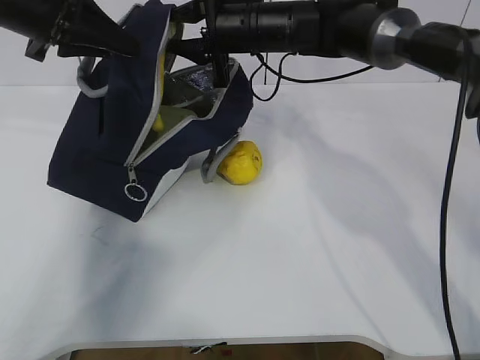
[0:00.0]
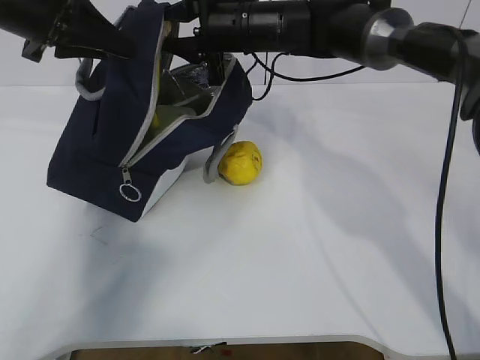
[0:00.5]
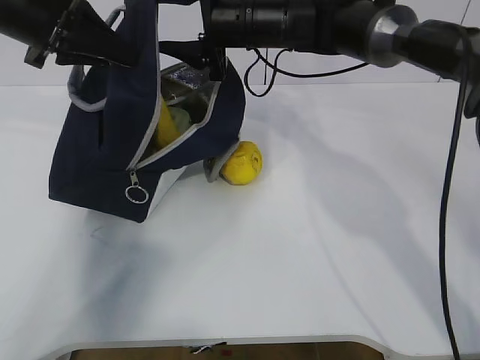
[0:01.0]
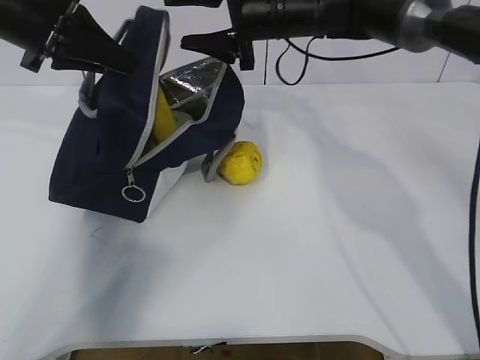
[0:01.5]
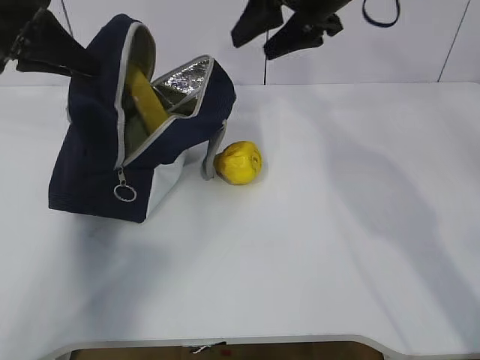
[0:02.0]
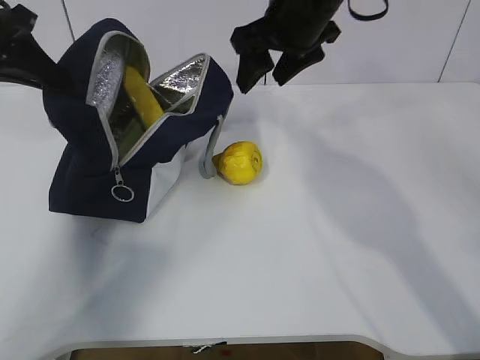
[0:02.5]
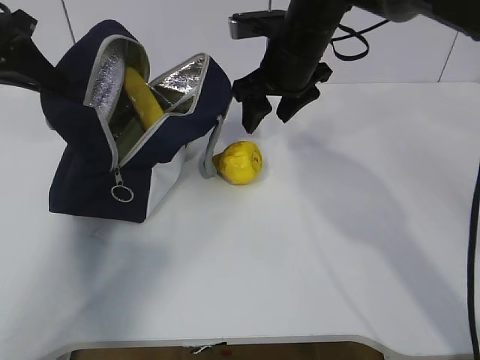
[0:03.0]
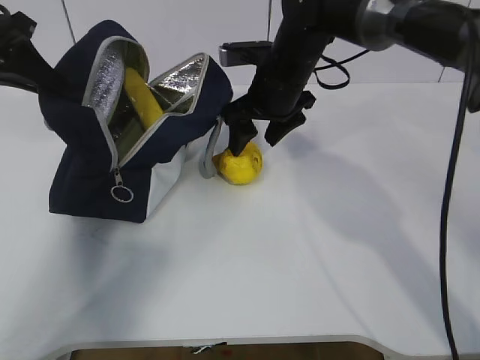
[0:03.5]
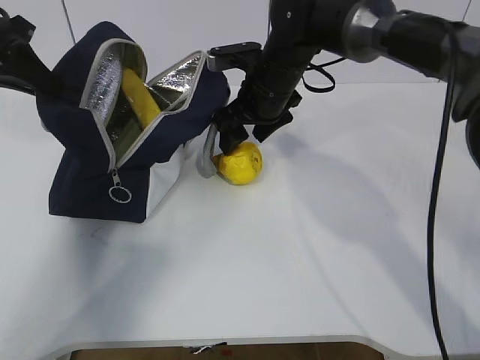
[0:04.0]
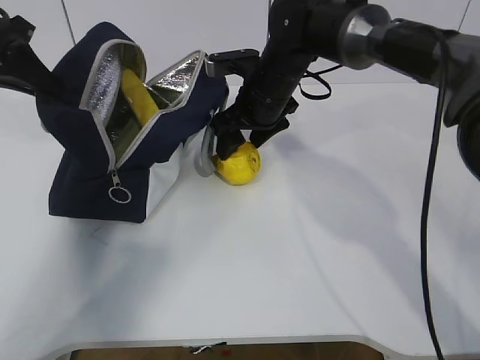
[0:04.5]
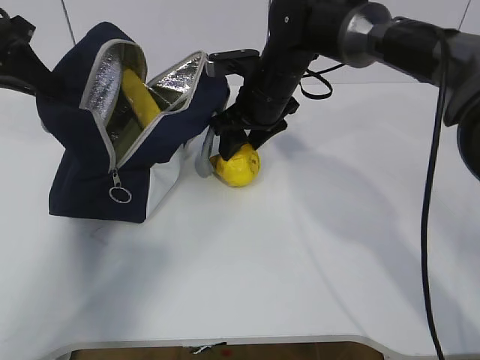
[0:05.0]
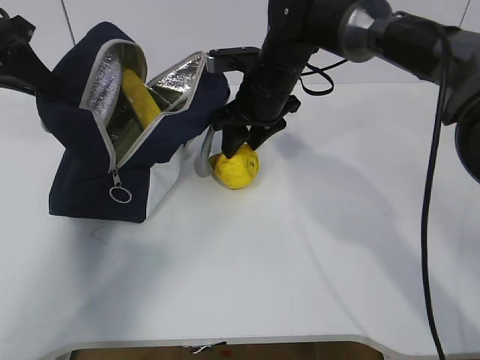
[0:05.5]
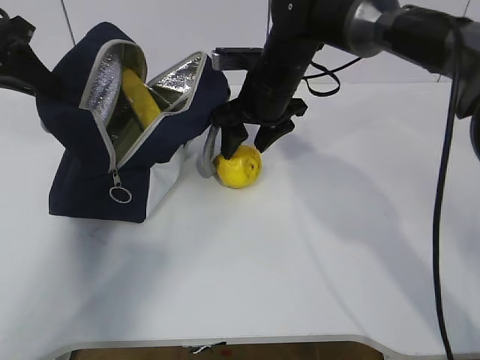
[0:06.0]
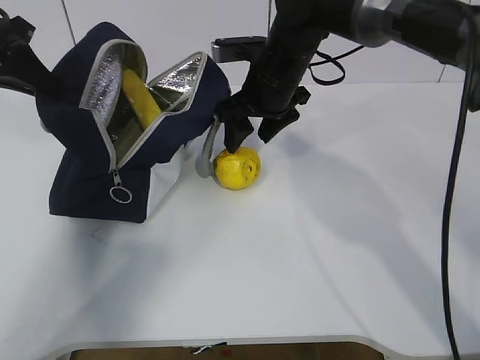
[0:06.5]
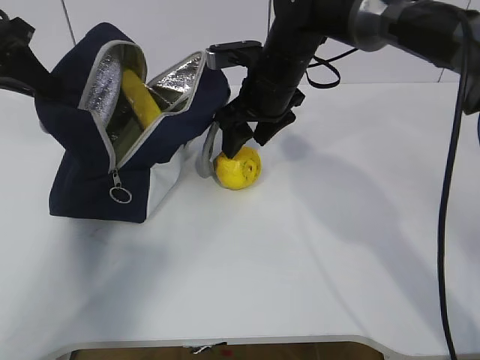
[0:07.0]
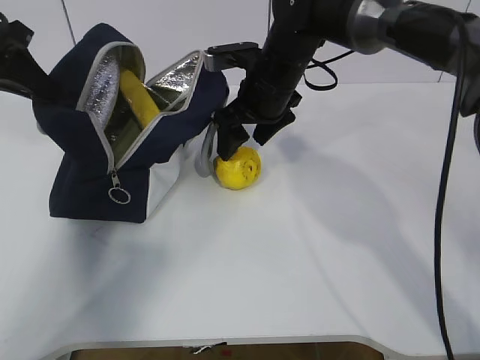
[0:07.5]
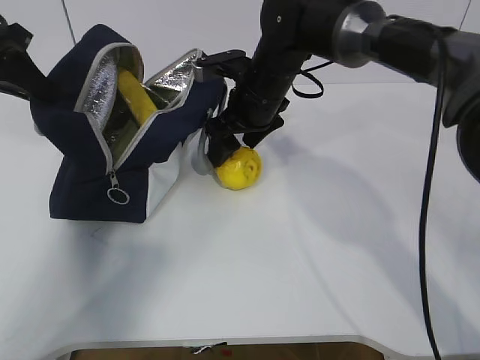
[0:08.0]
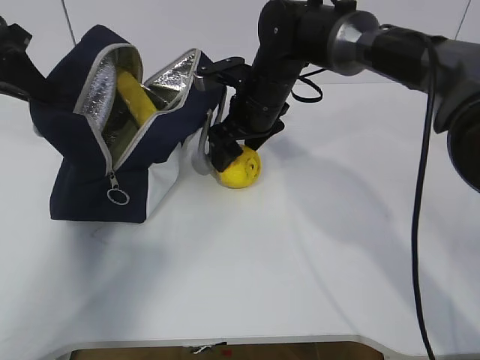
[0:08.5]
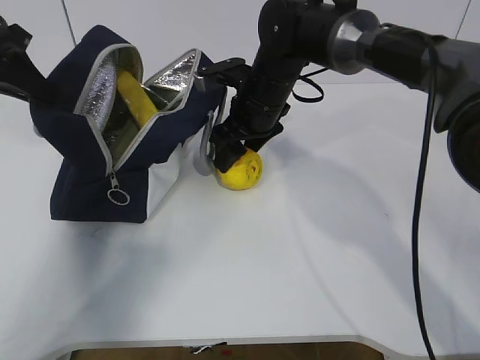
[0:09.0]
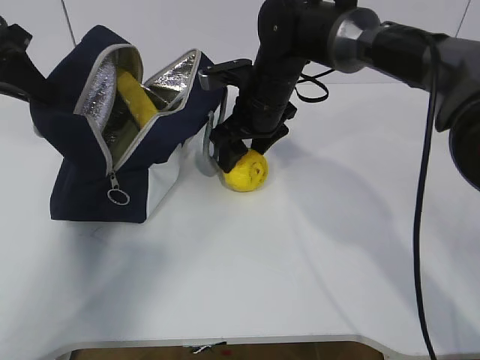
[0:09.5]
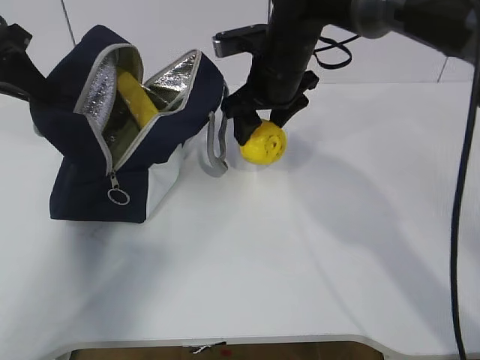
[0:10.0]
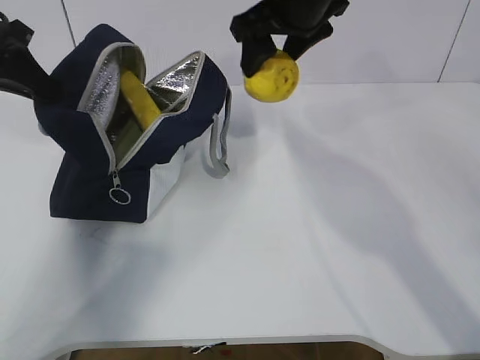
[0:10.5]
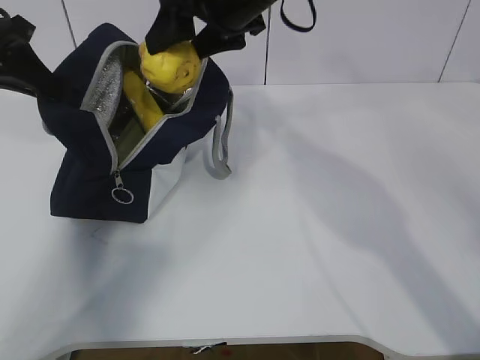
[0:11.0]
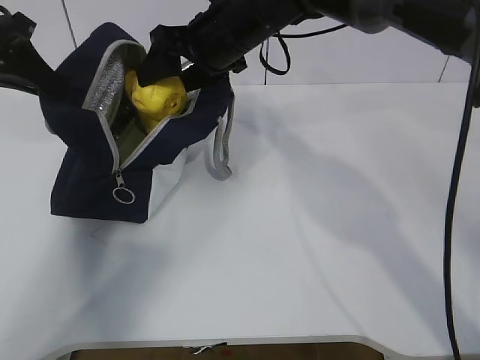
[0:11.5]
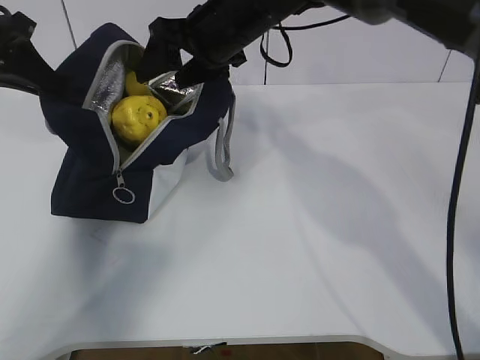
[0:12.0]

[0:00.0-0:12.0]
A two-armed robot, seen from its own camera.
Step, 0:02.0 to 0:09.0: Grasp the pear with the right gripper.
0:00.0 to 0:02.0: The right gripper travels to the right and upward by approximately 10 cm, and opens up.
0:02.0 to 0:04.0: The right gripper is displaced downward and to the left by roughly 15 cm.
0:04.0 to 0:10.0: There are only small adjustments of the grippers.
0:10.0 to 0:12.0: The right gripper is displaced to the left by some 5 cm.

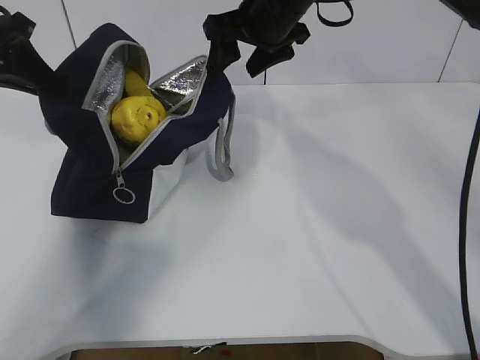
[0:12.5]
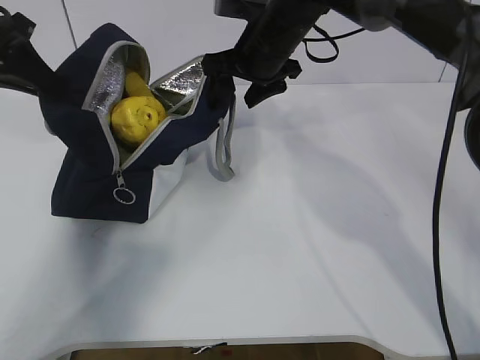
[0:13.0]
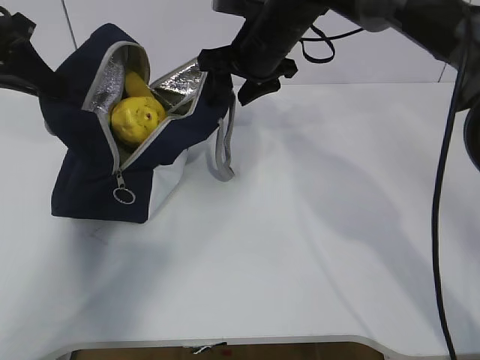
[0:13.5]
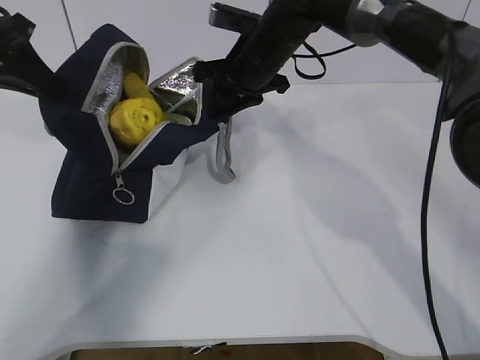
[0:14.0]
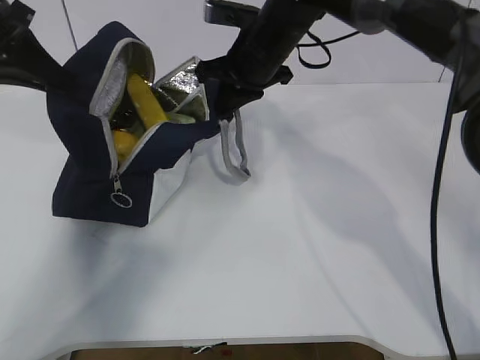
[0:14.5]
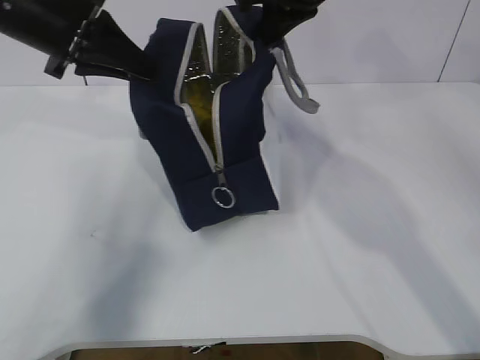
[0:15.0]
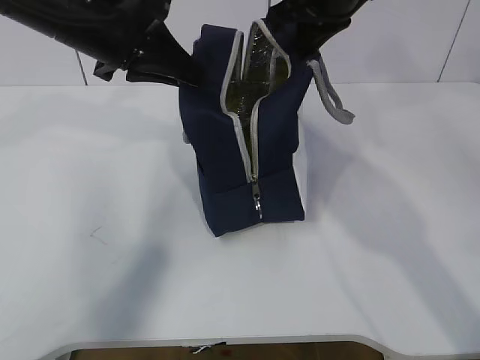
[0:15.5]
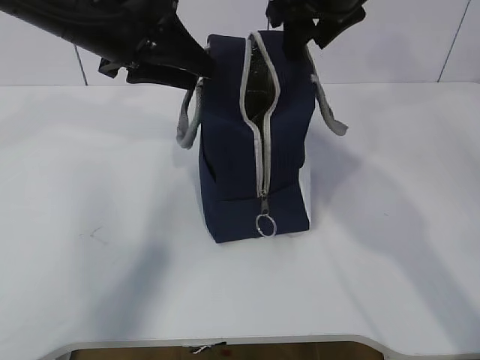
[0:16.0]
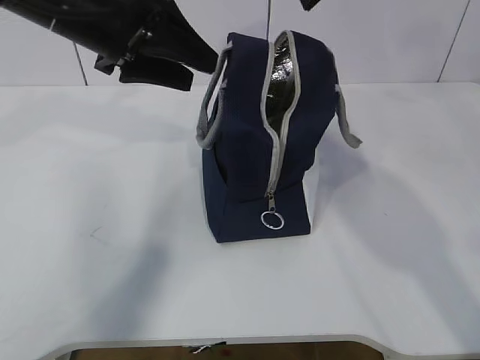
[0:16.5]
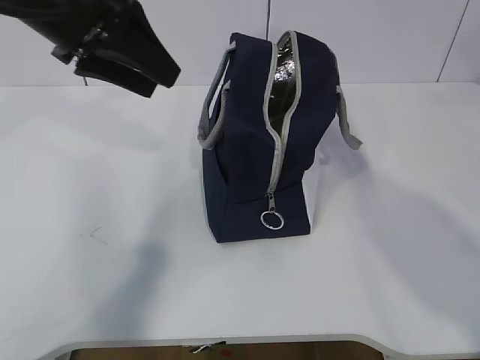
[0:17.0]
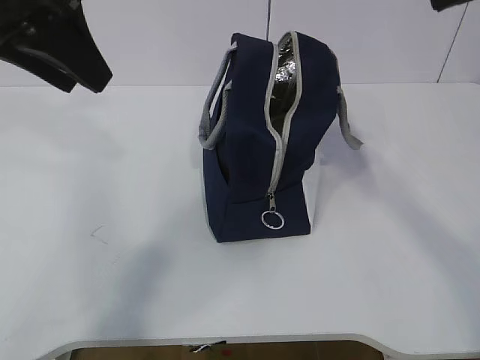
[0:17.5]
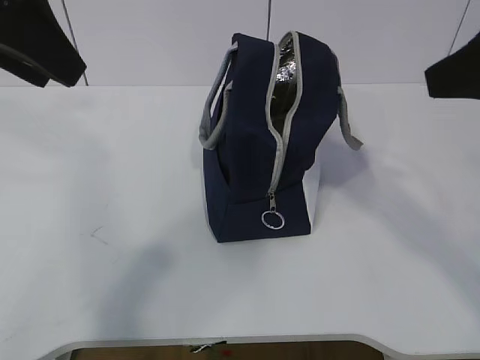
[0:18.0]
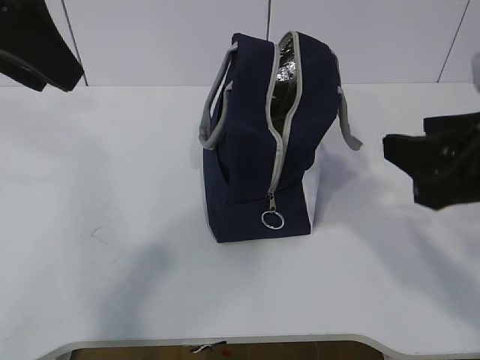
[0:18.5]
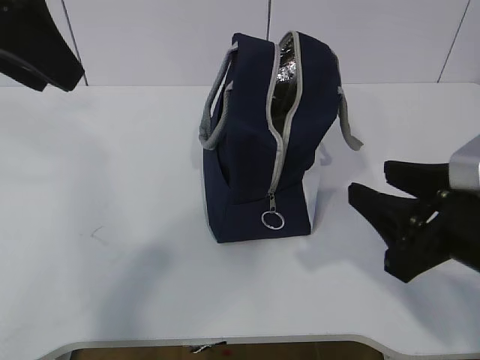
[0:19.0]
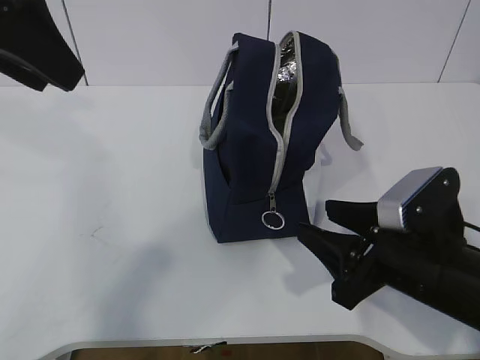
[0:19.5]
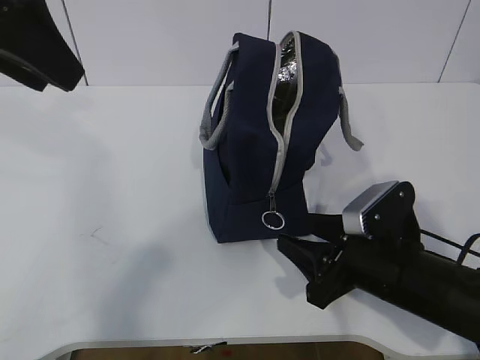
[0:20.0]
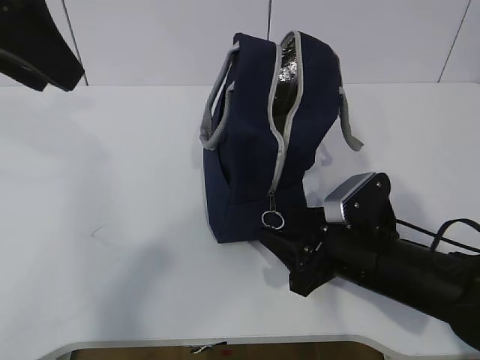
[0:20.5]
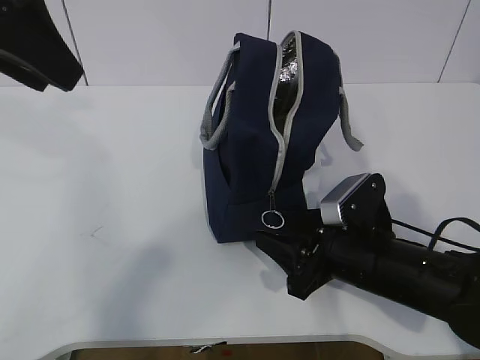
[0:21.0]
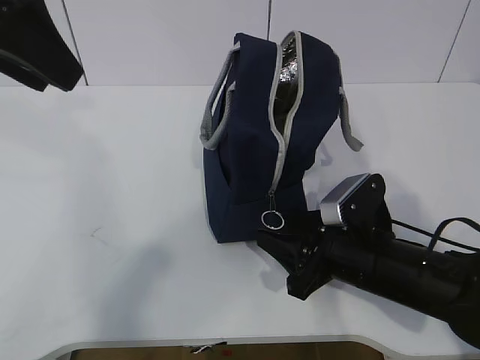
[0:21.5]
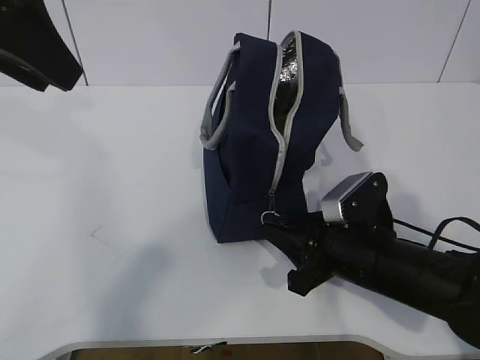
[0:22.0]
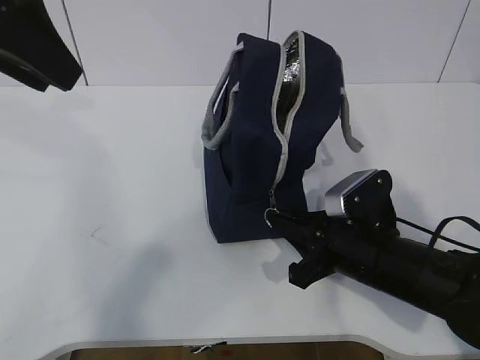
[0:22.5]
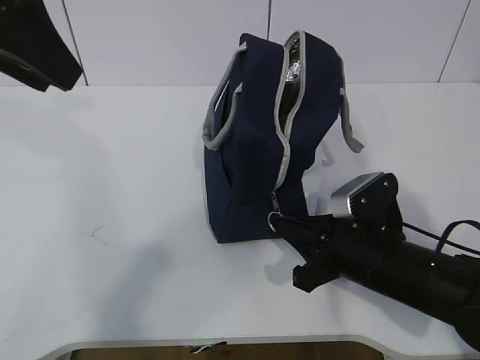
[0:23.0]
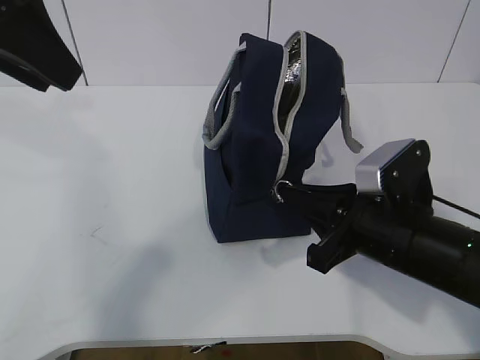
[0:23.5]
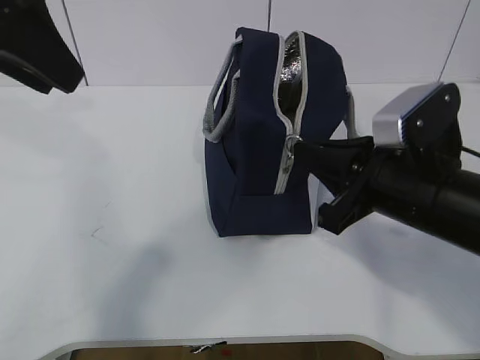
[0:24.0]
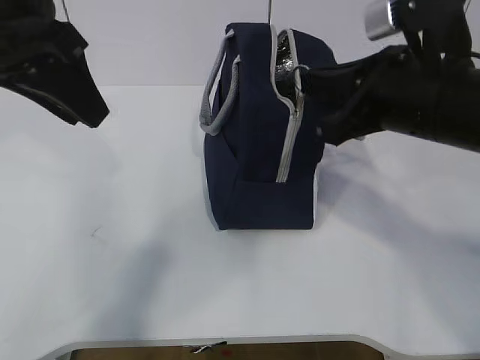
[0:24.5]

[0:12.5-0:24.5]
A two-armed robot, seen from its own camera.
0:12.5 to 0:14.5: The right gripper shifts roughly 5 cm downward, and closes up.
0:14.5 to 0:16.5: The left gripper is displaced to the right by approximately 15 cm, and opens. Meanwhile the right gripper travels upward, backward and to the right by approximately 20 cm, and opens up.
0:16.5 to 0:18.5: The right gripper is displaced backward and downward by some 25 cm. Meanwhile the left gripper heads backward, upward and to the left, covering about 15 cm.
0:18.5 to 0:20.5: The right gripper heads downward, covering some 15 cm.
0:20.5 to 0:22.5: The right gripper closes up.
0:22.5 to 0:24.5: The right gripper is displaced upward by approximately 20 cm.

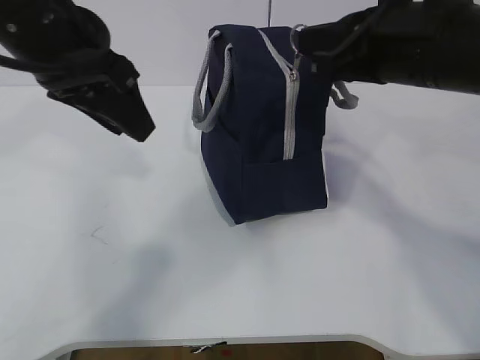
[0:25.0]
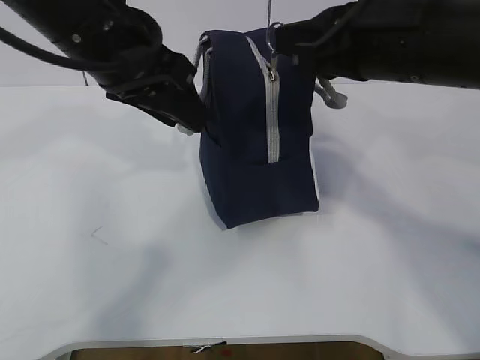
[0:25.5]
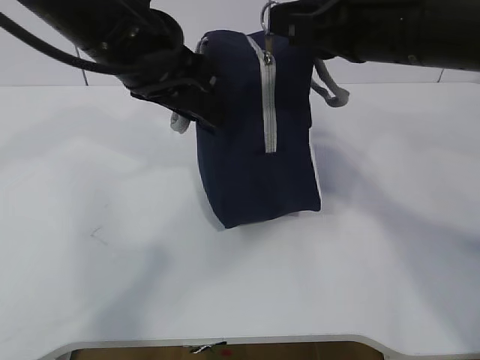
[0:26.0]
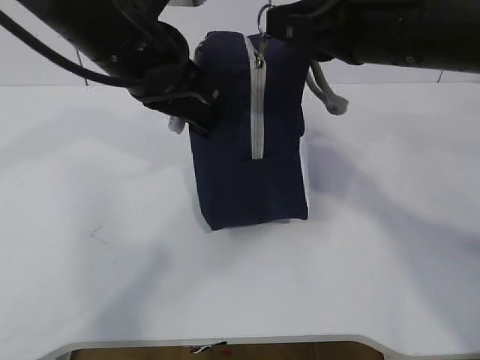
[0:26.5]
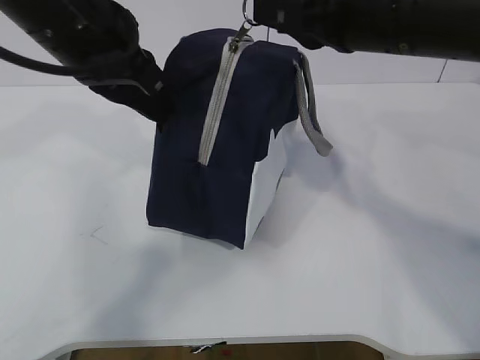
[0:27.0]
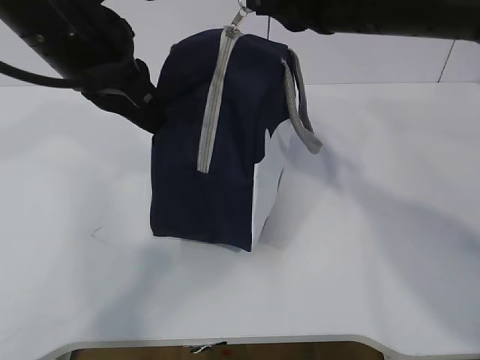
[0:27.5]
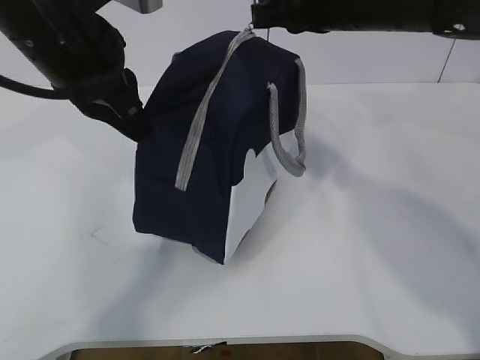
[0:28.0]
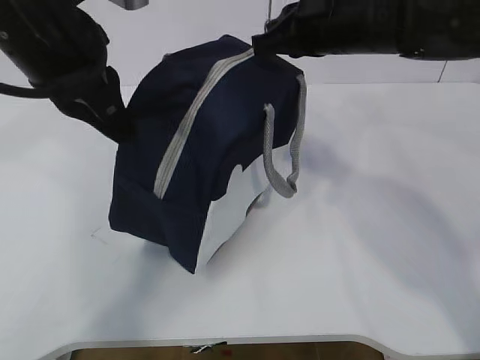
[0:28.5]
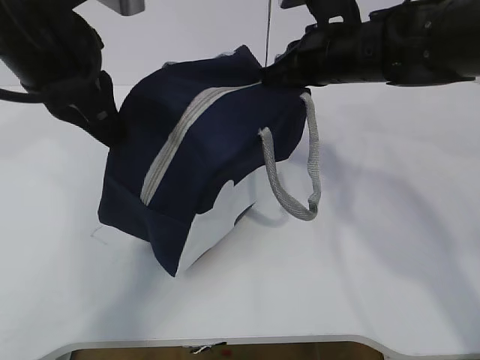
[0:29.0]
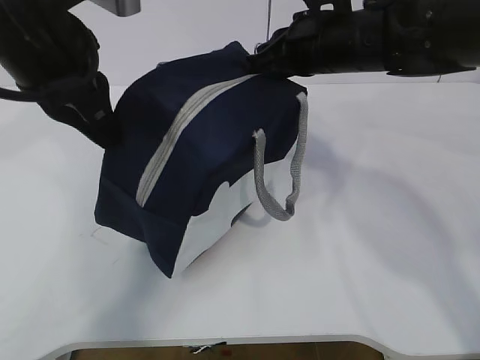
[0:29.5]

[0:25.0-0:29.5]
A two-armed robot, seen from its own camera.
0:25.0 to 0:27.0: The left gripper closes up.
0:27.0 to 0:29.5: The right gripper shifts roughly 15 cm forward and downward.
